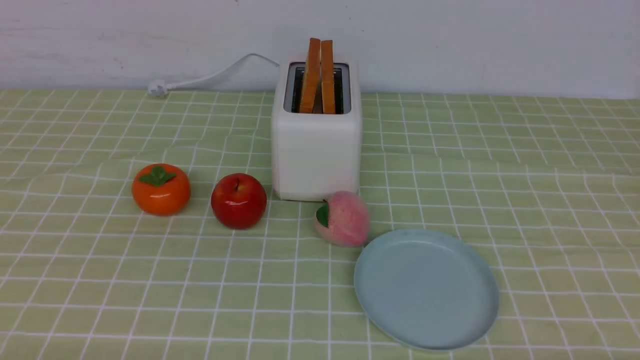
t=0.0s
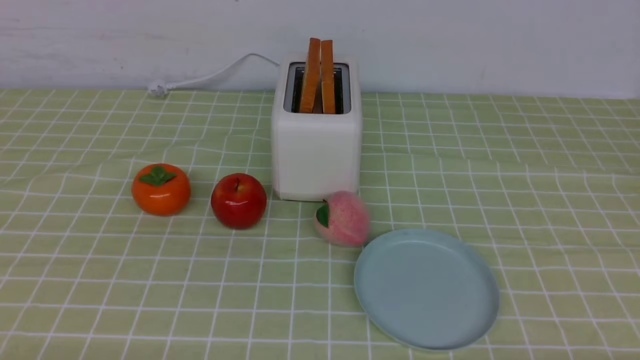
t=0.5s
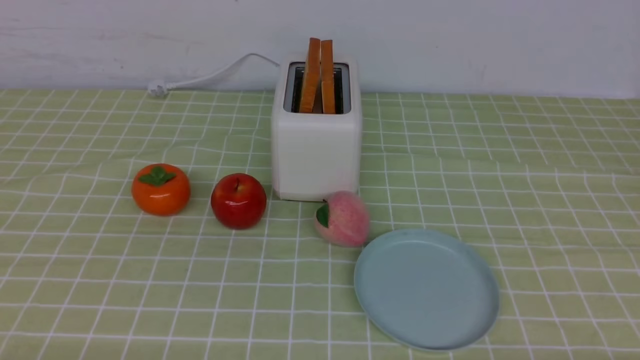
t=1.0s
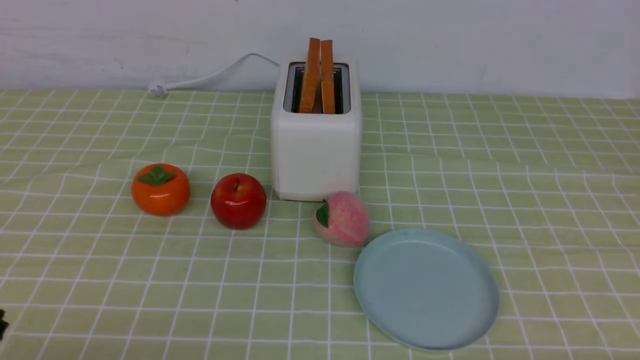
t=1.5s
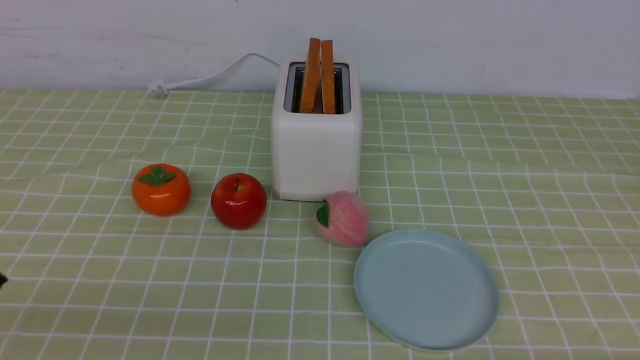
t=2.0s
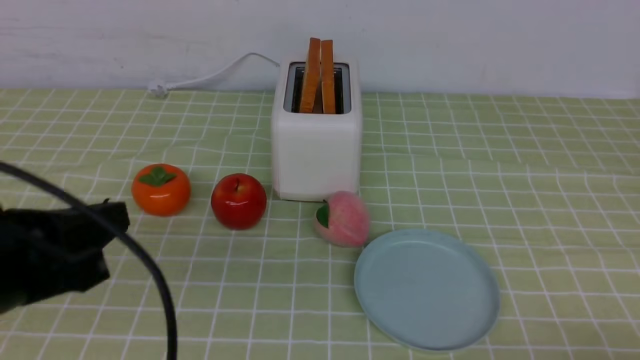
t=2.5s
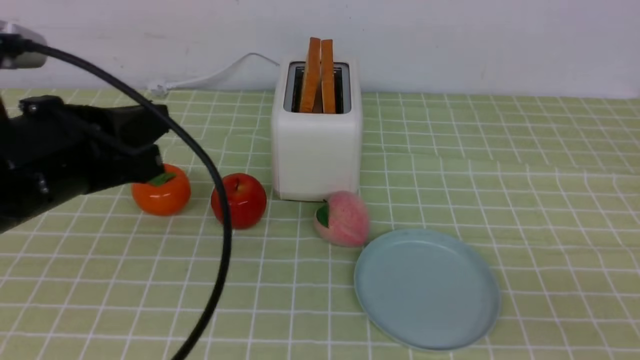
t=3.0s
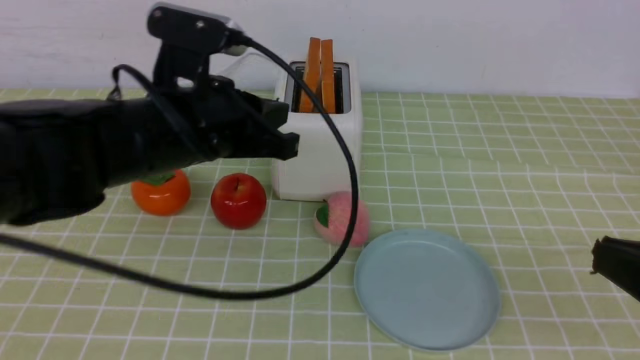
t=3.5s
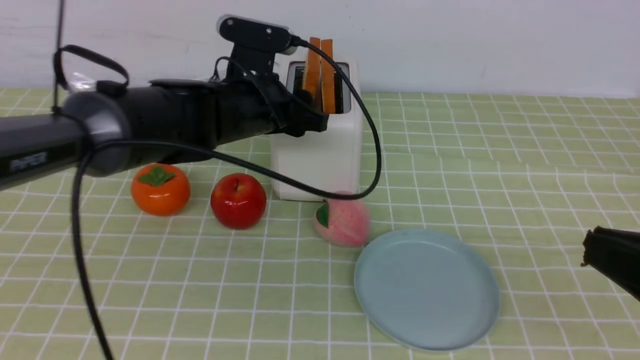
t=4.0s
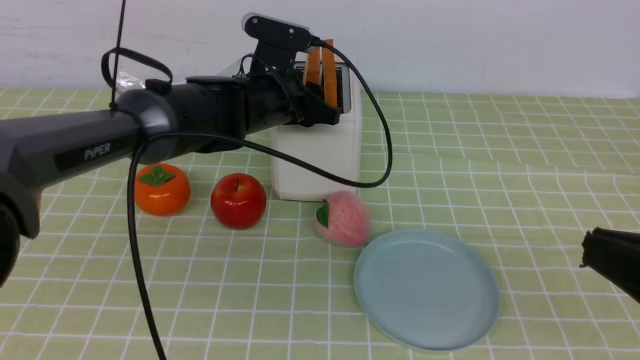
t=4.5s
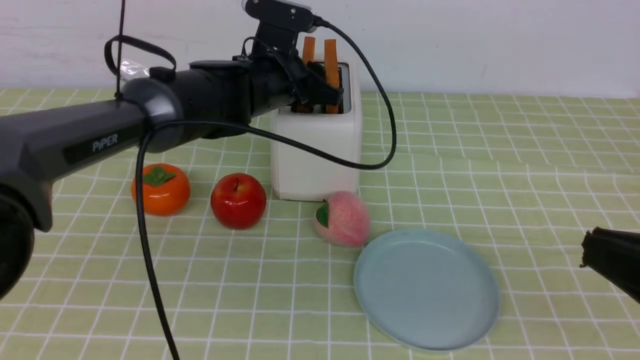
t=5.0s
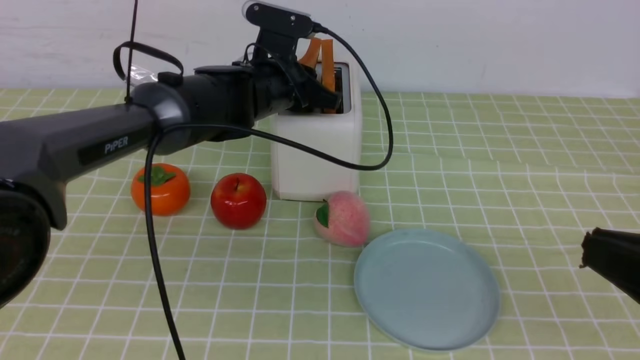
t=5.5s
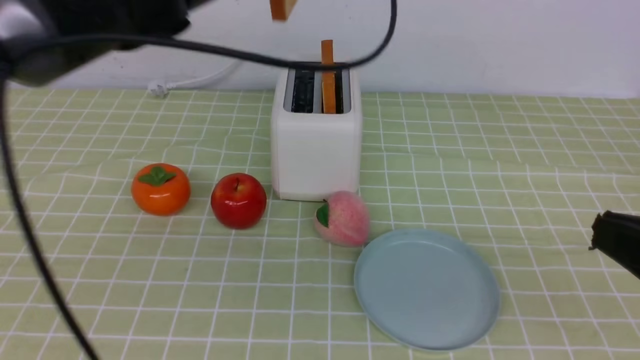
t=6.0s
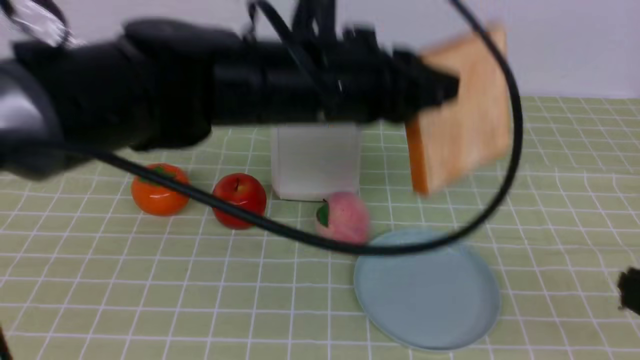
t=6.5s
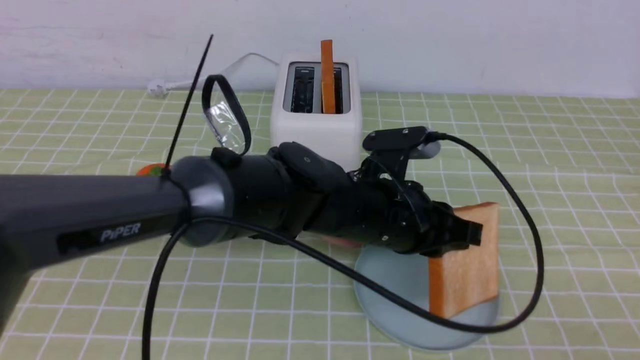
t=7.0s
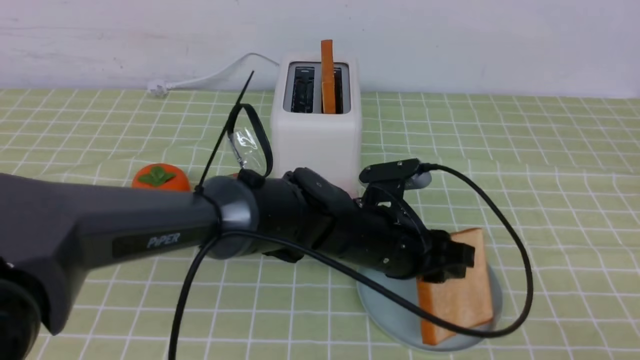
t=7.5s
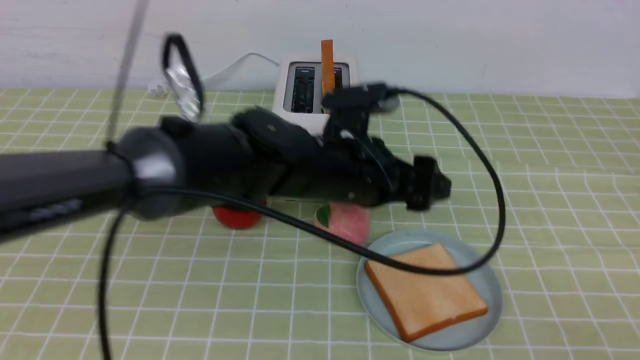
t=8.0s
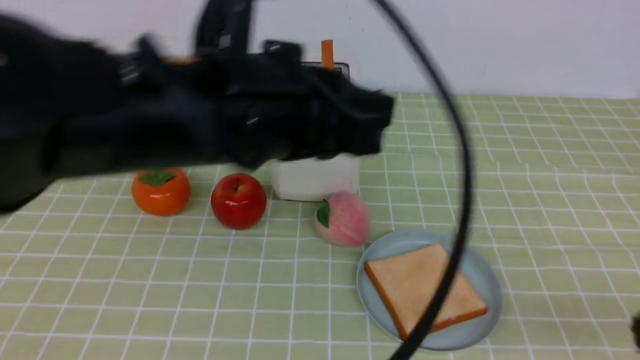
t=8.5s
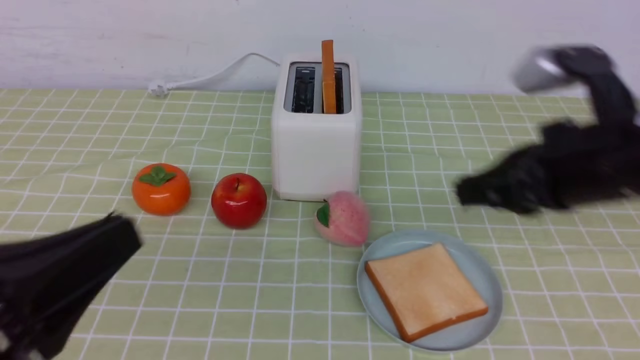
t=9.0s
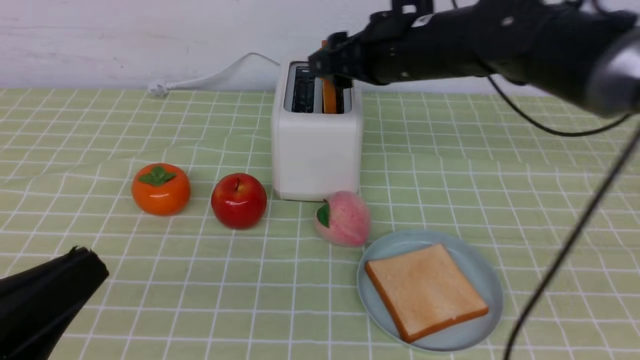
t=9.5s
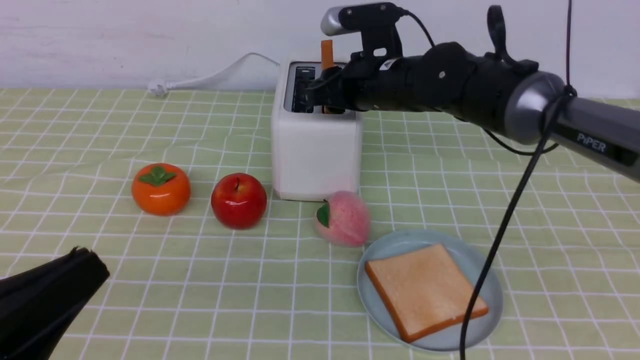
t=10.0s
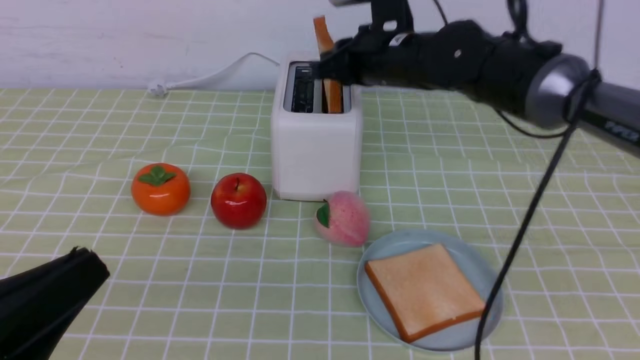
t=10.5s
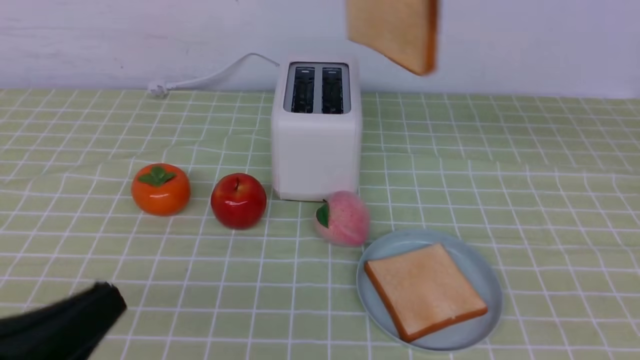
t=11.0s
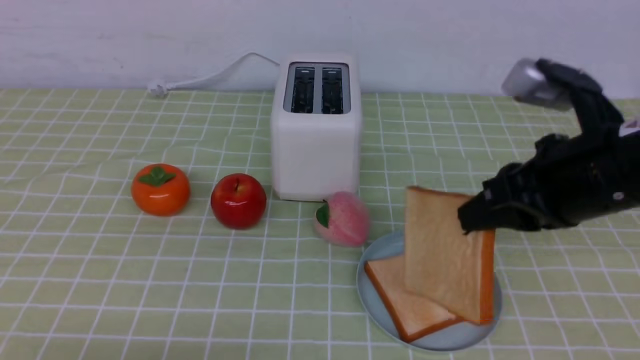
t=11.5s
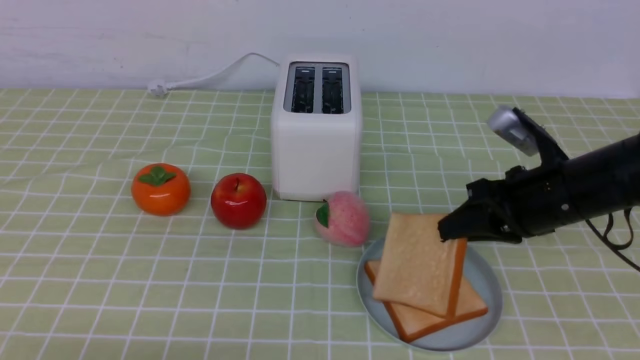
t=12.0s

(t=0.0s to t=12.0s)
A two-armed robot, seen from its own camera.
Task of the whole recording: take toasted bread from bread machine on green coffee tablecloth place on plate.
Step, t=0.0s - t=5.5s: use the left arm to take out a slice of bread.
Step, t=6.0s - t=8.0s: use the left arm to put a slice of bread into the empty plate.
Step, t=8.5s - t=10.5s: use the right arm to take out a slice of bread.
t=2.0s - t=4.0s: The right gripper travels upward by roughly 15 cm, and closes its fingers. The left gripper goes roughly 35 cm forward and to the right, and opens up.
t=4.0s - t=6.0s: The left gripper shifts about 10 cm upward, and closes its fingers.
t=6.0s - t=8.0s: The right gripper shifts roughly 5 cm backward. The left gripper travels downward, to the right and backward by approximately 20 cm, and opens.
t=8.0s - t=10.0s: The right gripper heads forward and to the left, covering some 50 cm, and opens up; the left gripper moves backward and to the left, roughly 35 cm, and closes.
t=10.0s - t=12.0s: The left gripper shifts approximately 10 cm downward, while the right gripper is displaced backward and to the right by approximately 20 cm, reaches roughly 15 cm upward, then returns, and closes up.

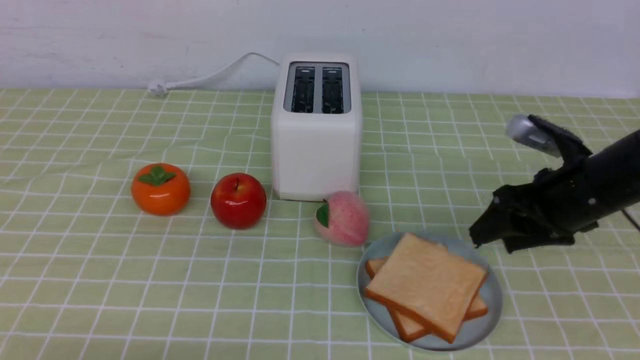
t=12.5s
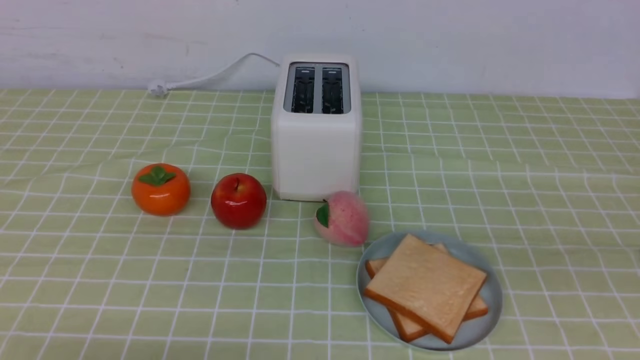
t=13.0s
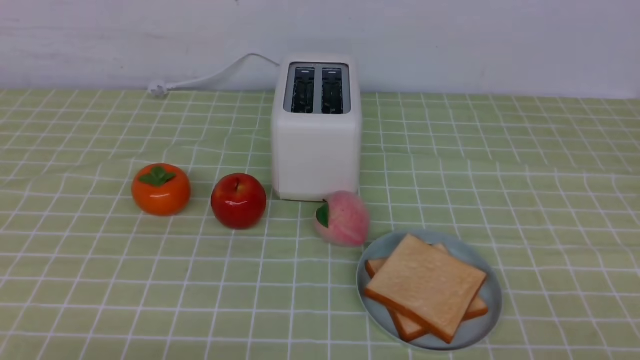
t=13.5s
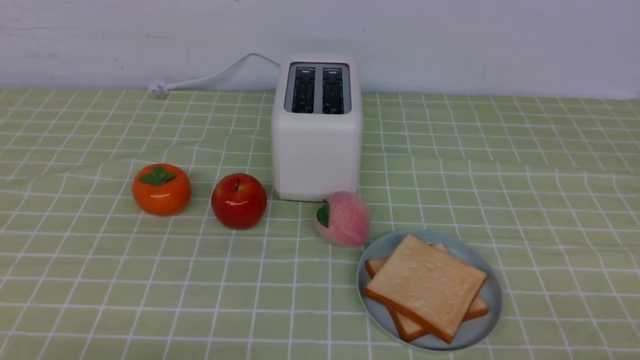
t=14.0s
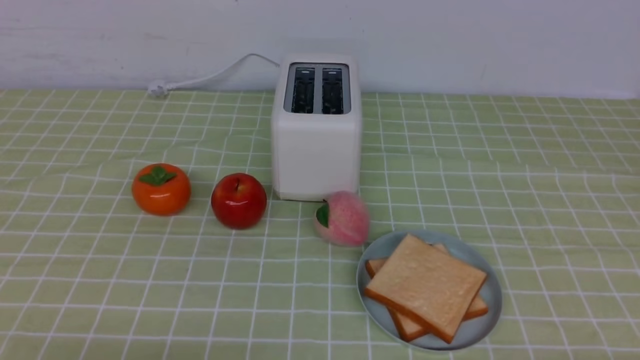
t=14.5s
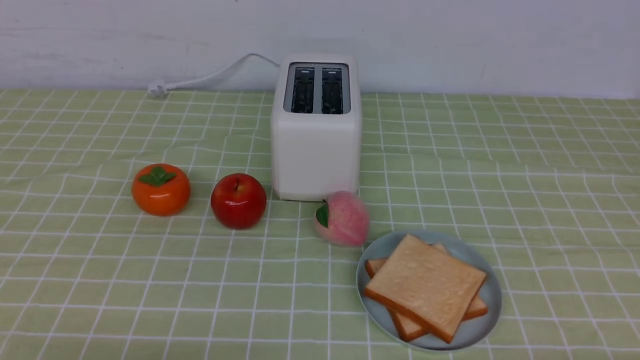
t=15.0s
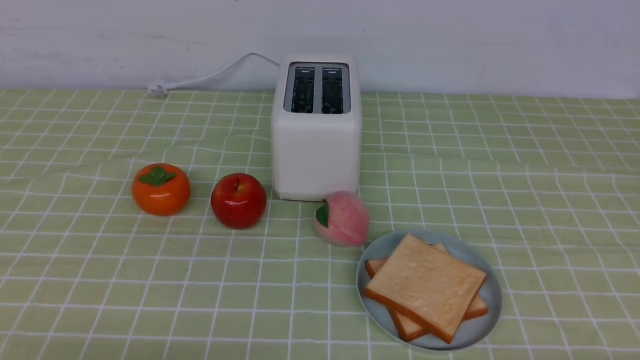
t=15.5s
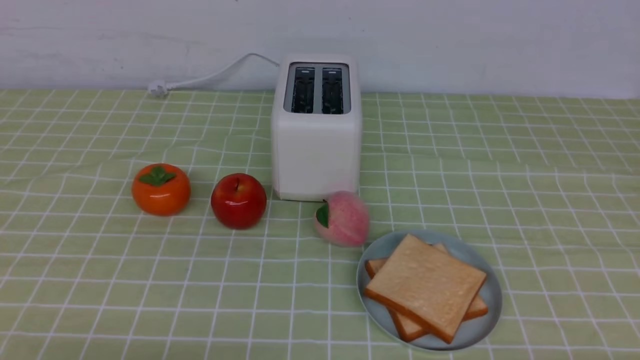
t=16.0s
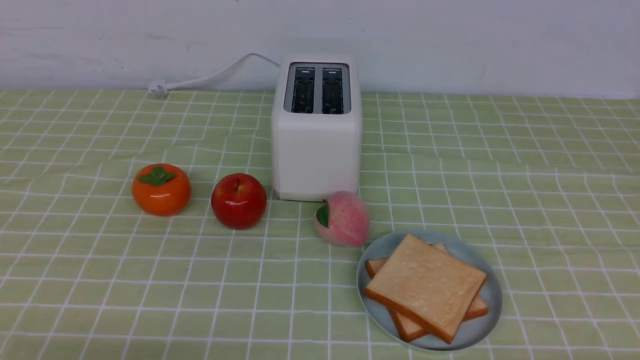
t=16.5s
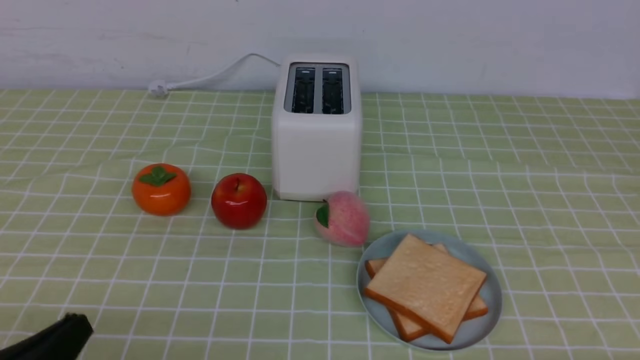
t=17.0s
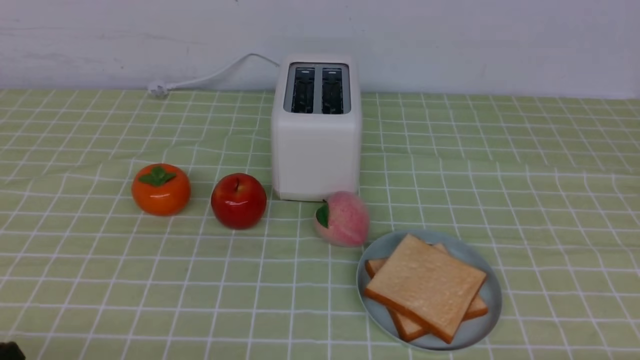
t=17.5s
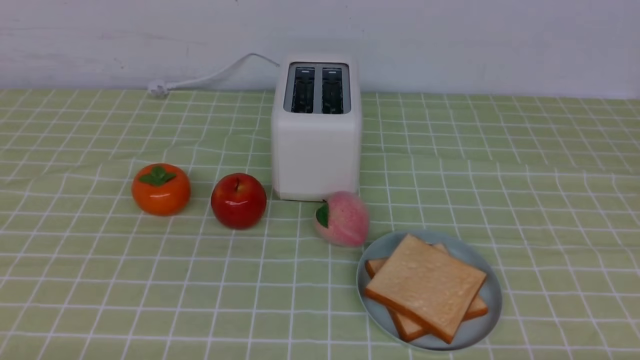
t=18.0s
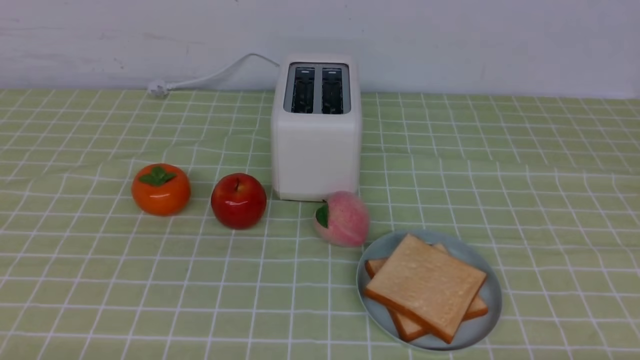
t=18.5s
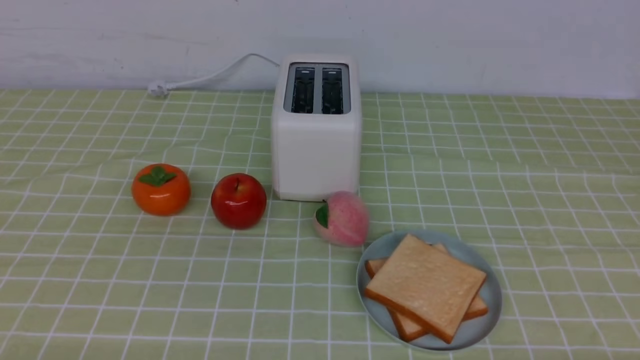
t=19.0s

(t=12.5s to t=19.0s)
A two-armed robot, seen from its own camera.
Task of the whole recording: take toasted bread from bread machine on green coffee tablecloth place on plate.
t=12.5s - t=14.5s: The right gripper goes some 30 cm backward, and closes.
t=14.5s - t=17.0s: The grippers stay close to where they were, moving slightly.

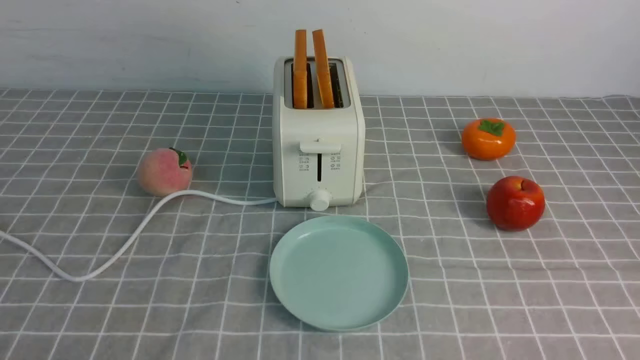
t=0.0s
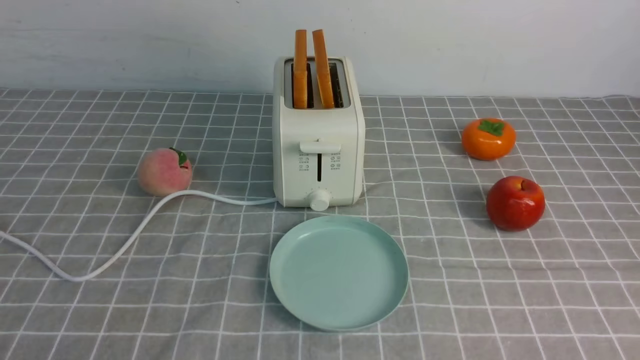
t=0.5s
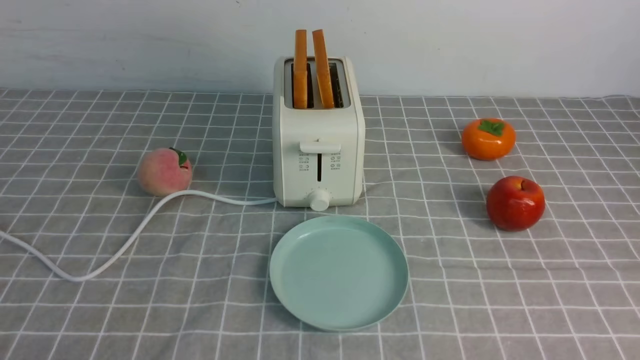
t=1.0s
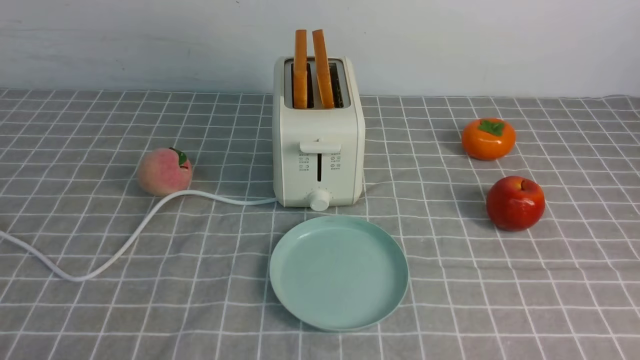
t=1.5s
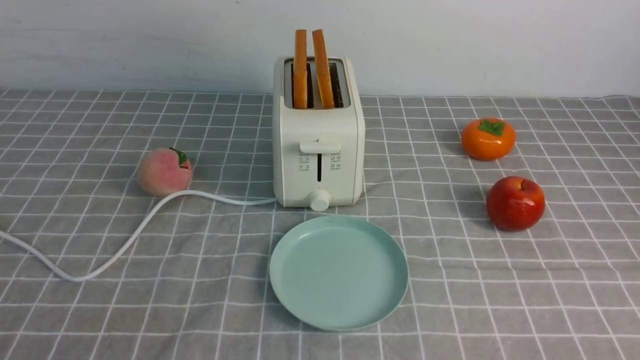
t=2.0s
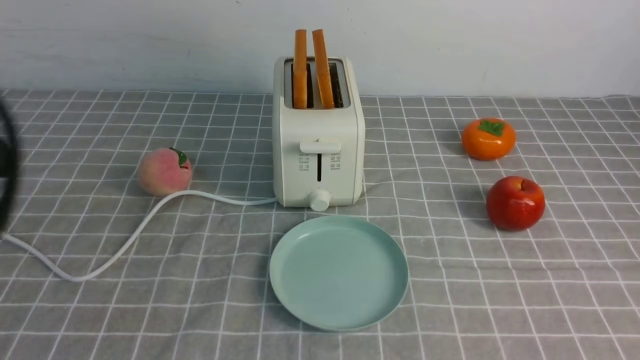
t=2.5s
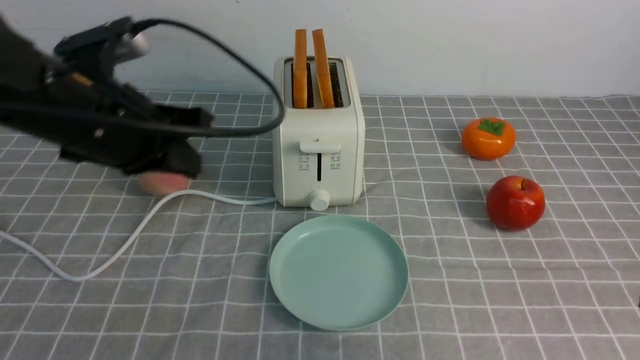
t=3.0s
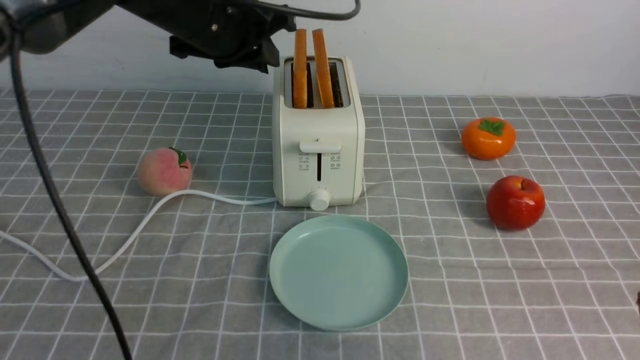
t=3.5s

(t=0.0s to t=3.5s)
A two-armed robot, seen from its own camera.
Task of the whole recording: take toasted bread from bread machine on grey coffee table place on plate.
t=2.0s - t=3.5s: The right gripper travels upward and forward by roughly 15 cm, and closes up. The left gripper moves forward, some 40 cm, and opens its fingers.
